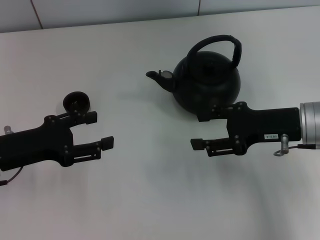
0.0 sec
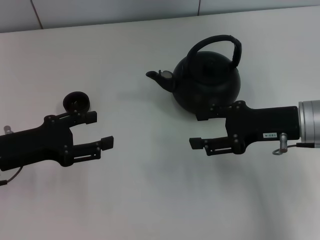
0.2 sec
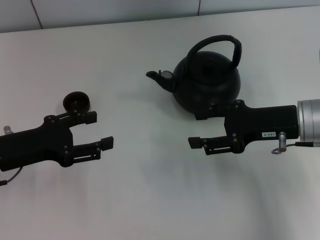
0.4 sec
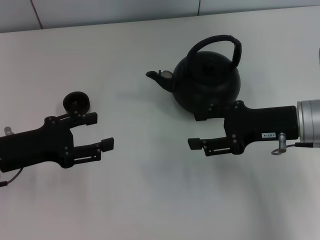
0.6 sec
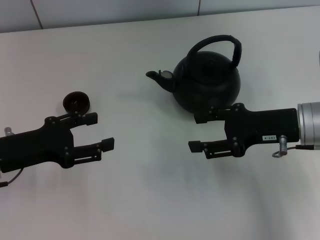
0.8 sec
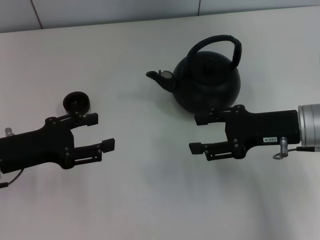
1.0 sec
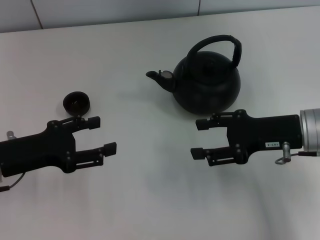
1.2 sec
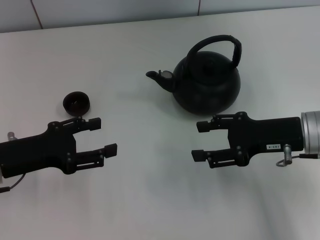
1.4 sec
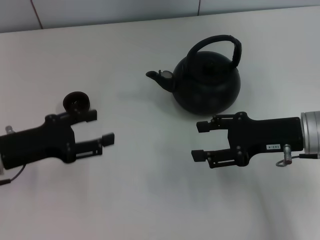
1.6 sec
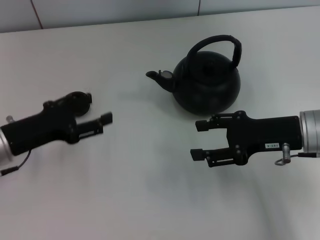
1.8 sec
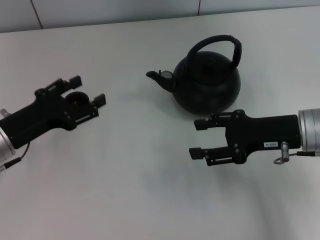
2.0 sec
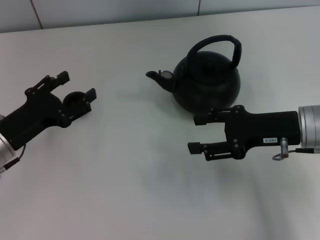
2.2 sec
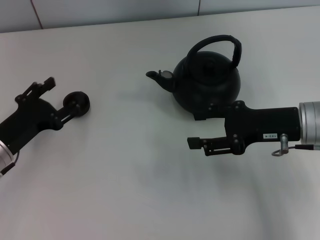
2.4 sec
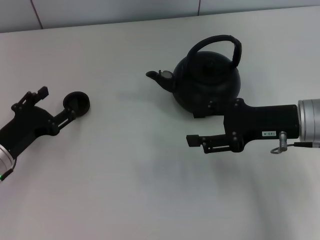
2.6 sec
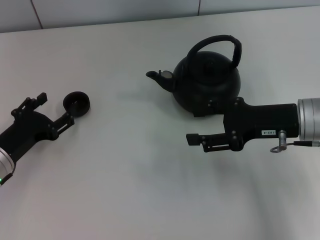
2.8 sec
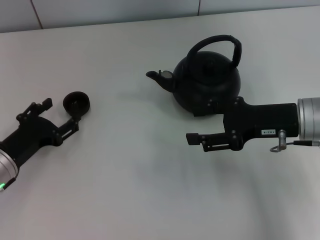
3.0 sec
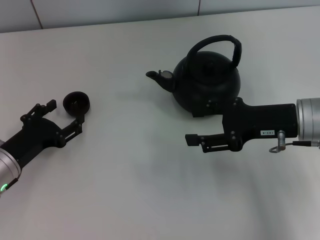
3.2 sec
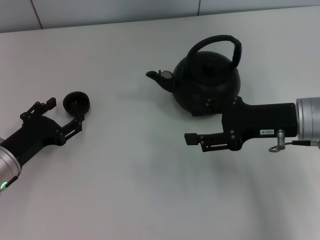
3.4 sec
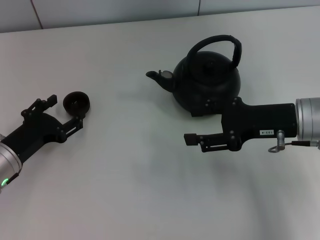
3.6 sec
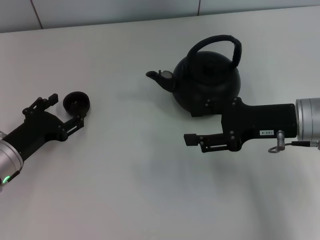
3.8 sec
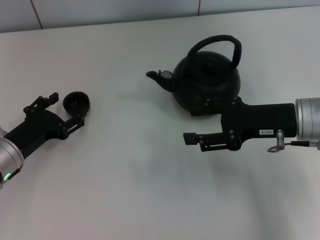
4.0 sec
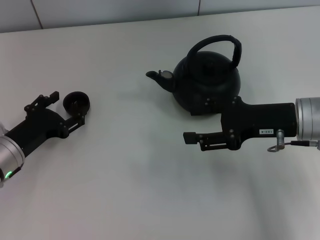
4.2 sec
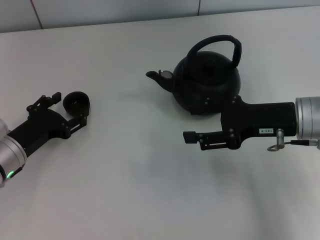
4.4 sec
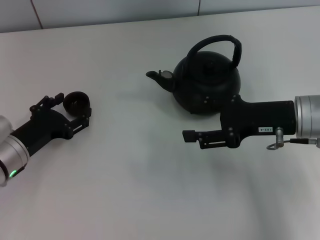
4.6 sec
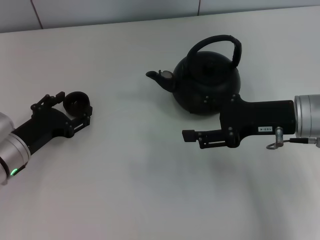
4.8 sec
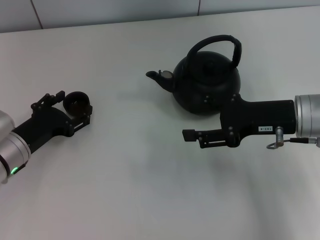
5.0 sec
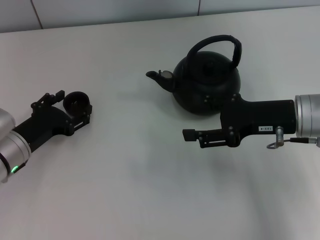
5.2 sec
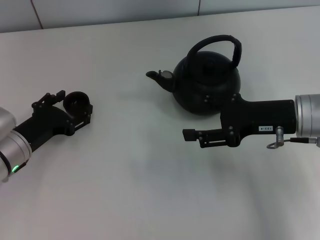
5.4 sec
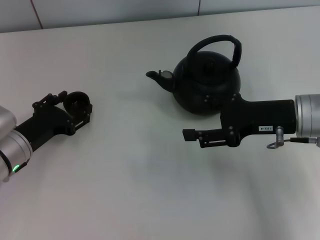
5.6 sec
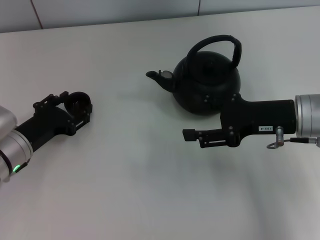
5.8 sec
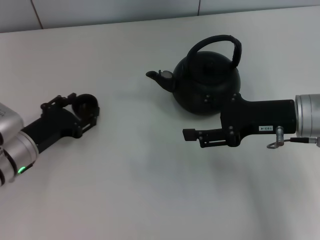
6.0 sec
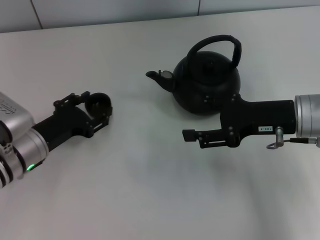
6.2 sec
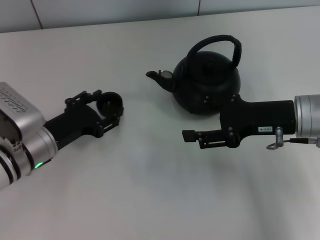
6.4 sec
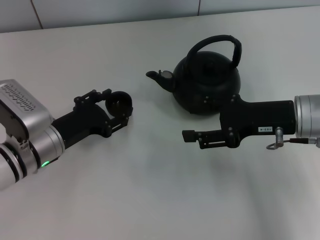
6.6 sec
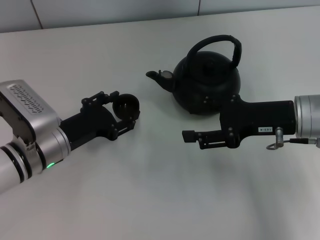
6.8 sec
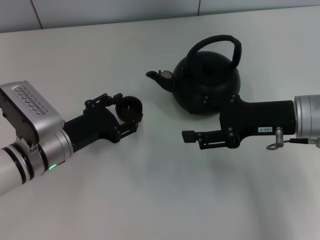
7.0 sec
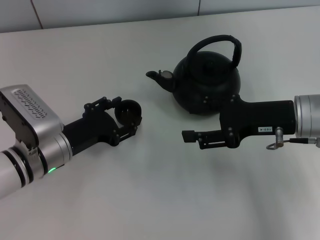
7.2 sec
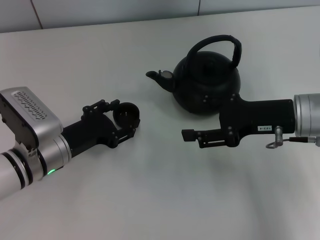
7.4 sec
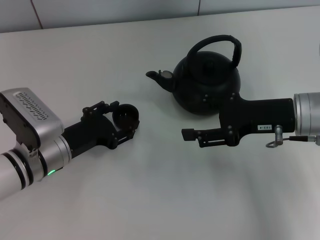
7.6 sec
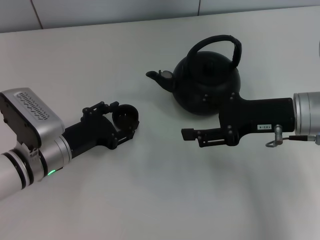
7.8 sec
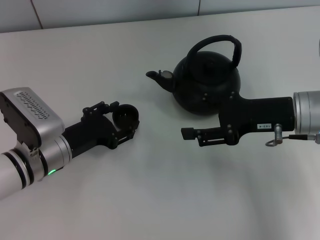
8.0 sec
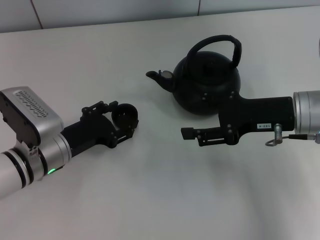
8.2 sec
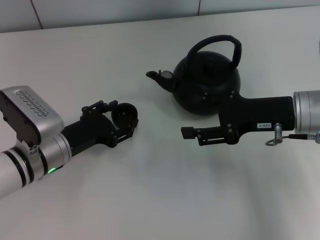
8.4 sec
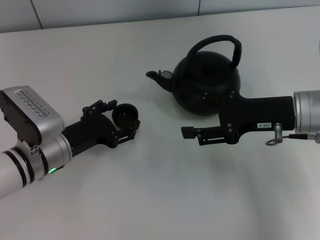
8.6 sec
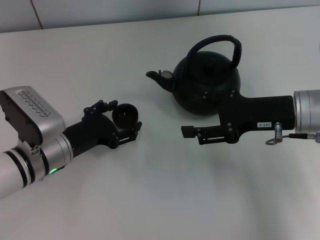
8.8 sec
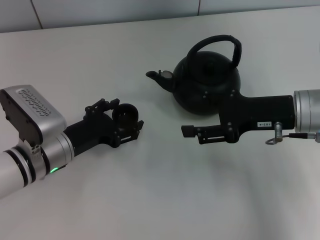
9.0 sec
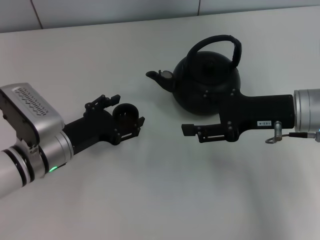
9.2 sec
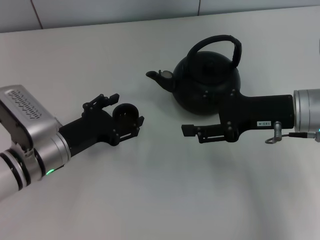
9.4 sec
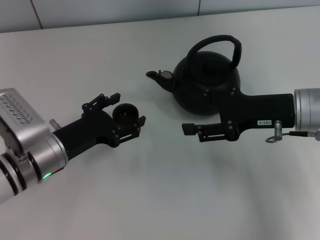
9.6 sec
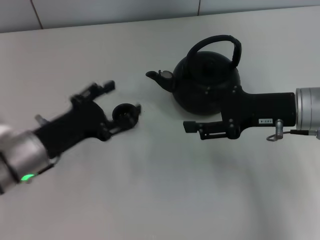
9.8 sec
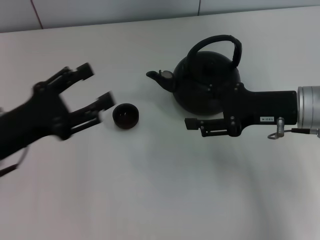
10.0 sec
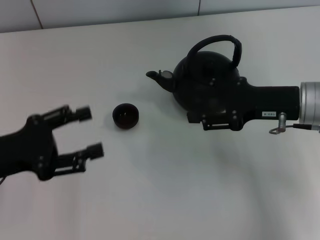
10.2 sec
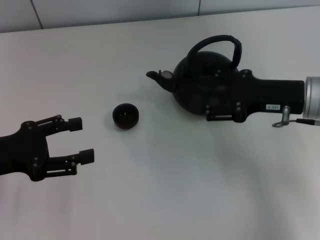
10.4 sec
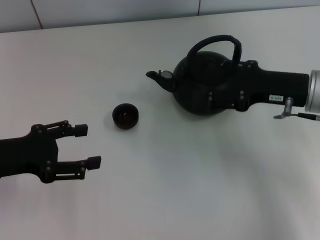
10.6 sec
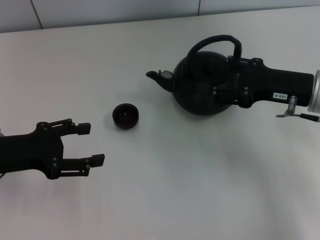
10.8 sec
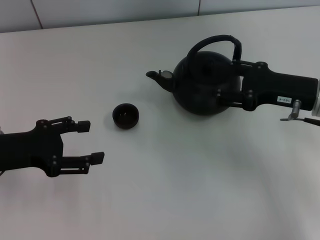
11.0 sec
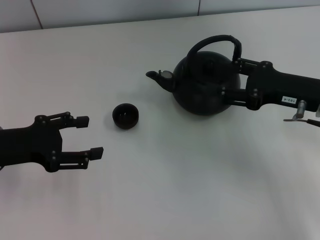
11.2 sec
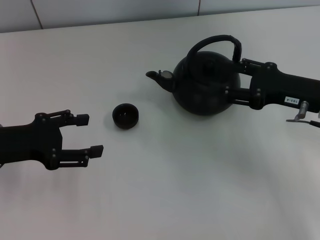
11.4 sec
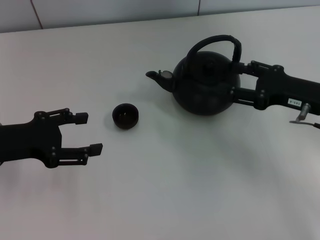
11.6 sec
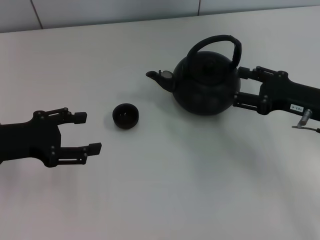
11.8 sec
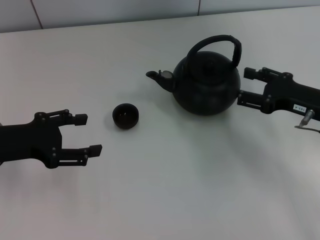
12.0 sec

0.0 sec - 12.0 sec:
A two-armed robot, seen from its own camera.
Task of the whole recording: Grasp the handle of the teapot with one hand and pour tea into the teacup.
Step, 0.0 sec - 6.4 sec: Pick up the teacup with the left gripper.
Step, 6.6 sec - 9.6 sec: Place the teacup in the center of view with the left gripper.
0.0 sec - 1.6 sec: Neither gripper changes place.
1.6 sec - 3.0 sec: The left gripper shifts some 5 cm downward.
3.0 sec - 6.0 sec: The grippers stay close to where they were, moving slightly.
6.0 sec - 7.6 sec: The grippers make only small movements.
7.6 sec - 9.0 sec: The left gripper opens its fingers.
9.0 sec - 10.4 sec: The left gripper heads to the left and upward, covering some 15 cm.
10.4 sec - 12.0 sec: The right gripper shifts by about 5 cm.

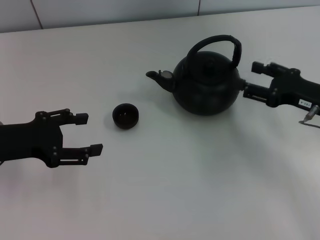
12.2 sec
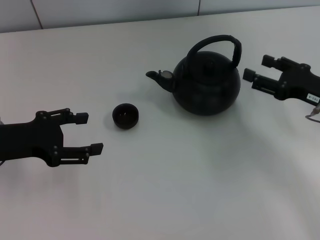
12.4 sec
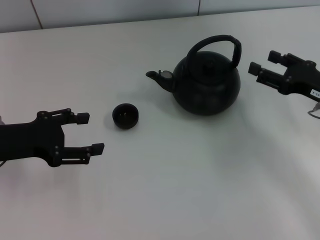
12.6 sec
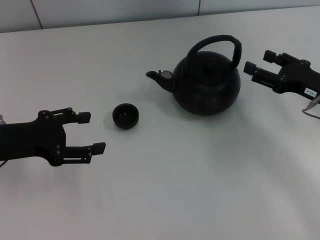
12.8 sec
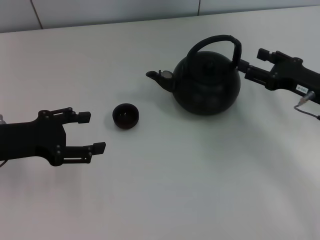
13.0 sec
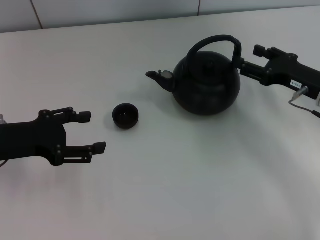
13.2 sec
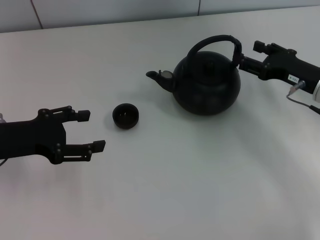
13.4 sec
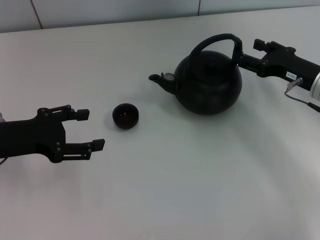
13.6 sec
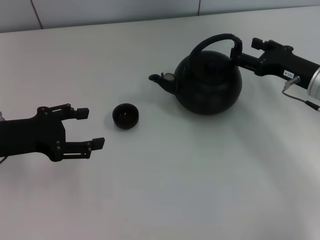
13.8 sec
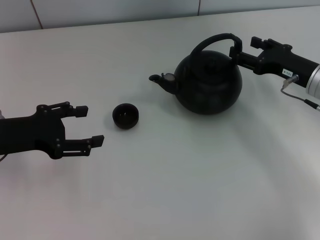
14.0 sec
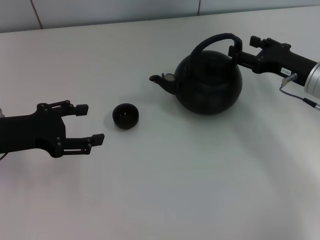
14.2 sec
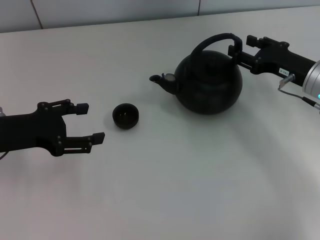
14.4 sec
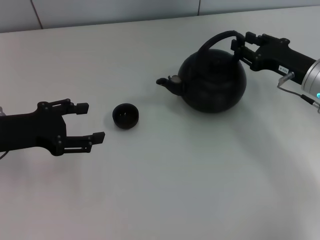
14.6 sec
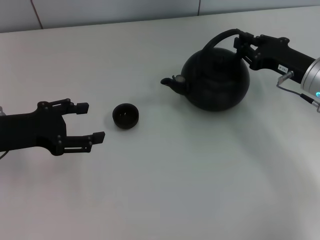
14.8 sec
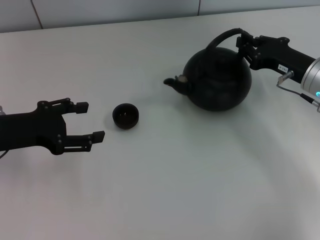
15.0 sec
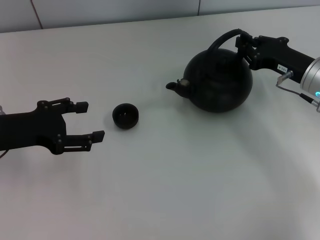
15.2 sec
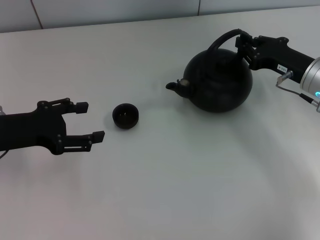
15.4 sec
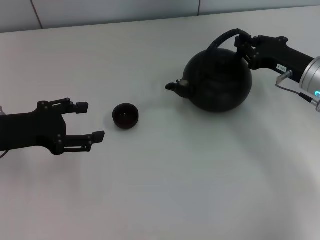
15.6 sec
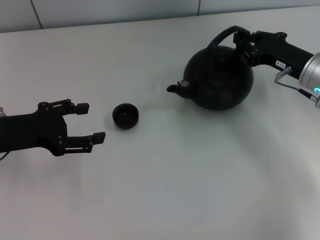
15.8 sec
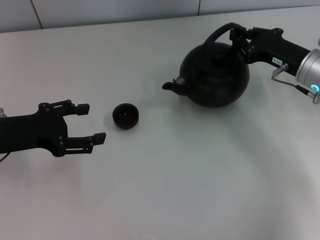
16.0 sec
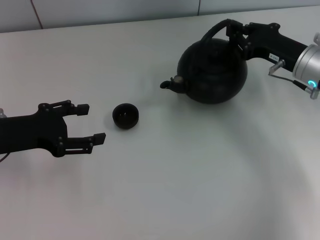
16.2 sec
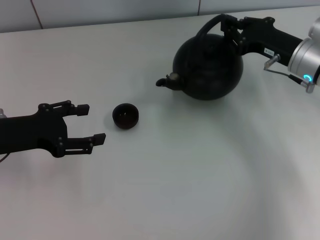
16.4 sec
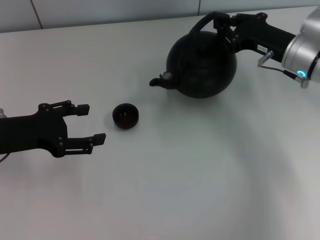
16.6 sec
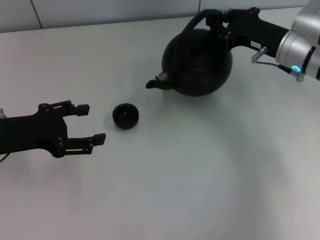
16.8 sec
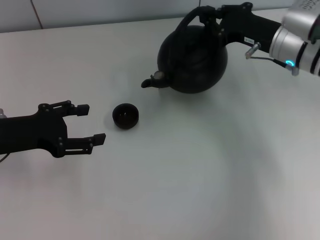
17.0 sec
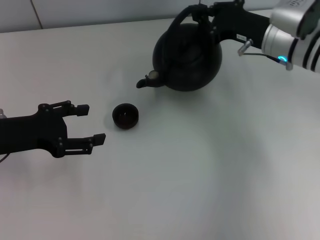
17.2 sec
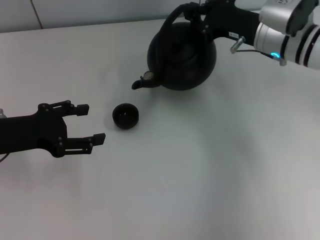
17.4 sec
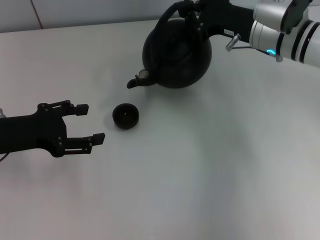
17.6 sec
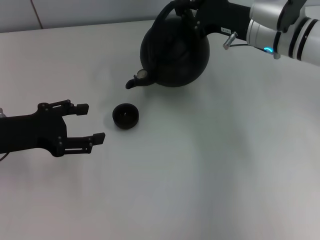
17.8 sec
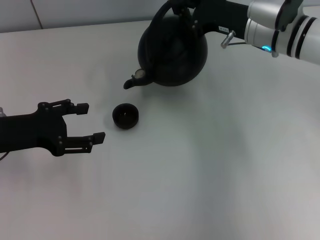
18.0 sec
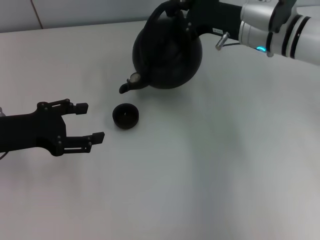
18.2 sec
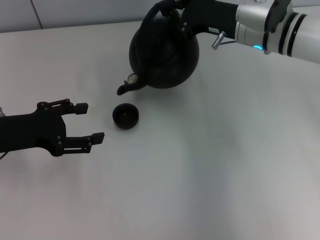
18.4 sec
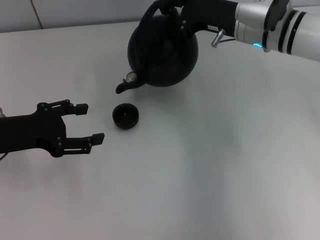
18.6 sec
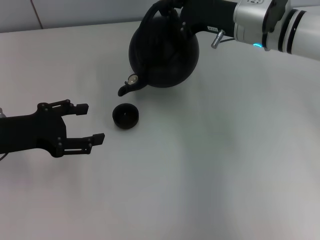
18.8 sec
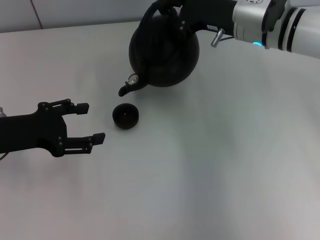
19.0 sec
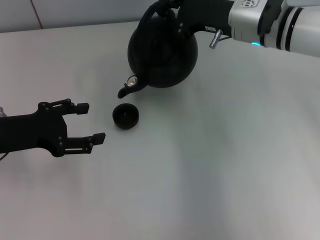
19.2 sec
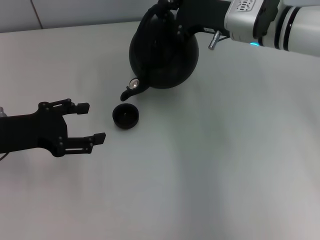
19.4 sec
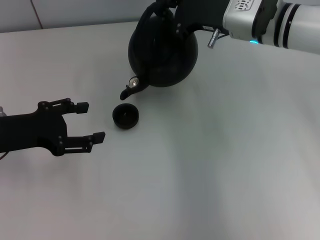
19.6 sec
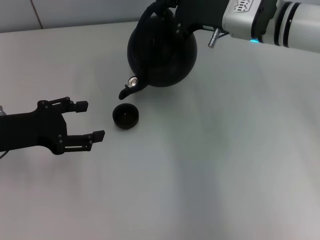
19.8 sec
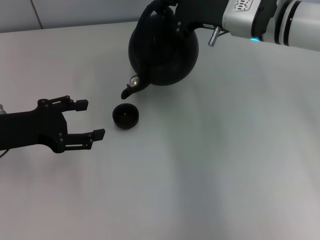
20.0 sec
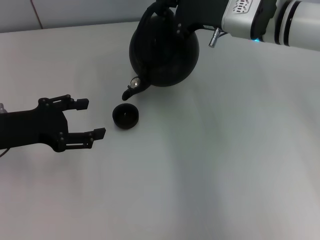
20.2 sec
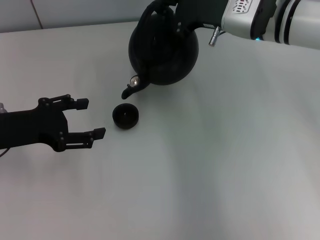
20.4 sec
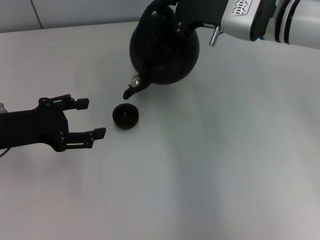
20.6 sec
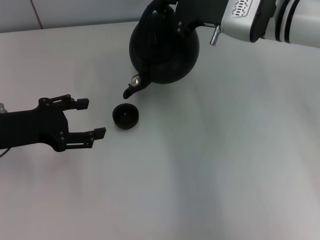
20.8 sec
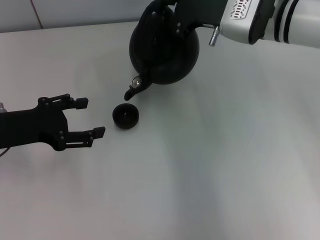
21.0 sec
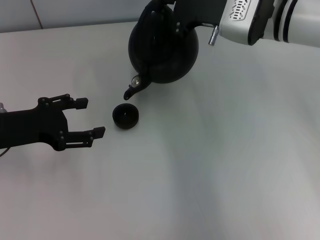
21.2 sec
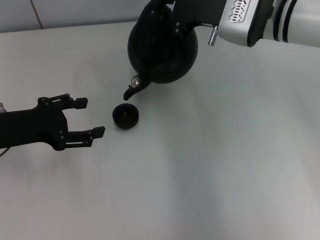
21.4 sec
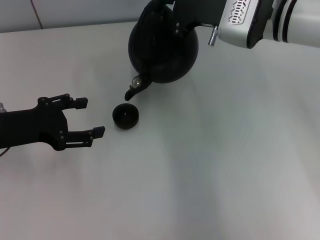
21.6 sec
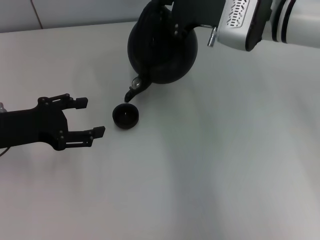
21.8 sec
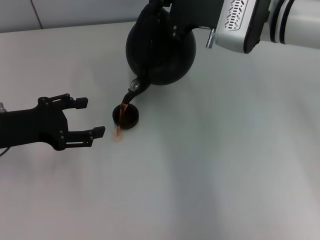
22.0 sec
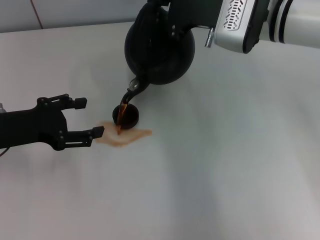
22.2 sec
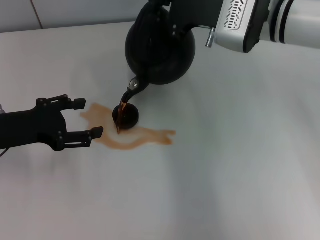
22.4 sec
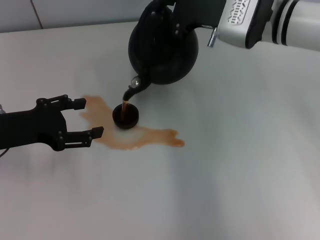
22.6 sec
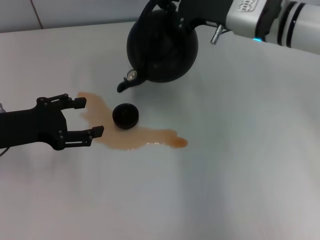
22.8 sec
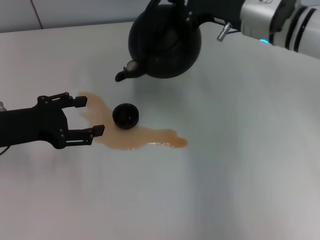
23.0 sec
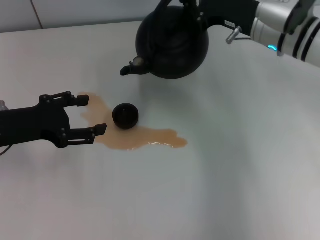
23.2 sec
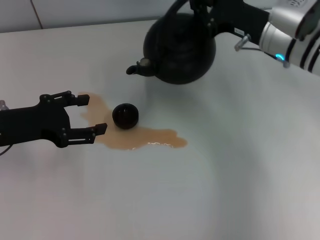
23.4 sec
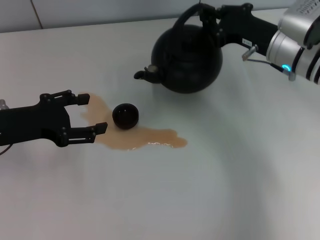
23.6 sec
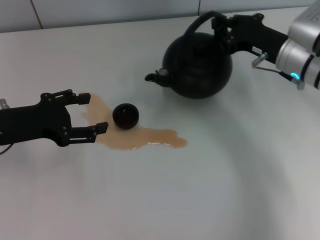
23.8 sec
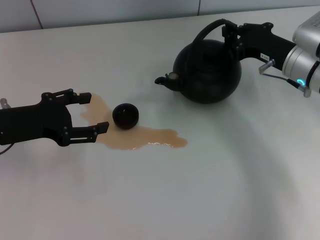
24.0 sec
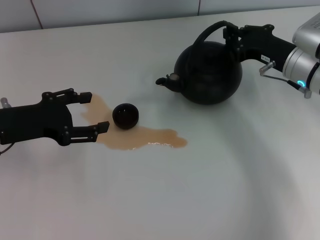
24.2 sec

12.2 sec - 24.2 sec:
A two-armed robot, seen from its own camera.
Task of the whole recording: Grasp the handle of the teapot with one hand and pour tea into the teacup.
Step, 12.2 sec - 16.6 sec: Pick up the teapot with the right gripper.
12.2 sec - 13.8 sec: The right gripper heads forward, covering approximately 5 cm.
13.8 sec - 15.2 sec: The right gripper closes.
15.2 sec - 16.6 sec: The grippers make only small movements.
16.6 sec - 18.2 sec: The right gripper shifts about 5 cm to the left.
18.2 sec - 19.8 sec: The grippers make only small movements.
19.8 sec - 21.2 sec: The grippers move only a little.
21.2 sec - 22.6 sec: The two grippers keep their place.
22.6 sec - 24.2 sec: The right gripper is displaced to the right and downward by approximately 10 cm.
